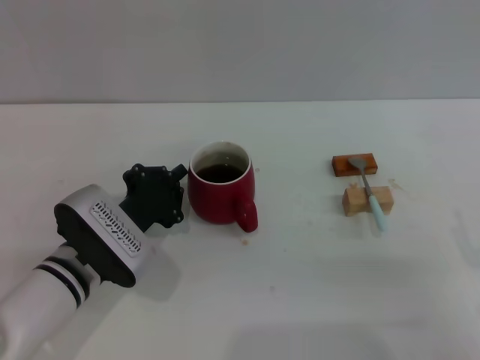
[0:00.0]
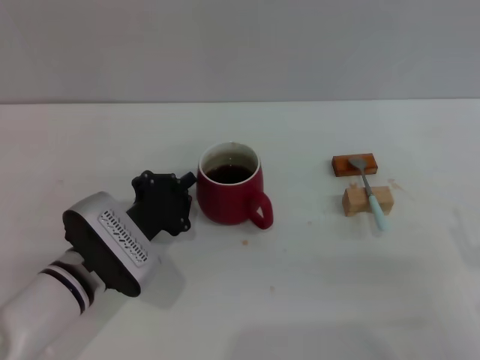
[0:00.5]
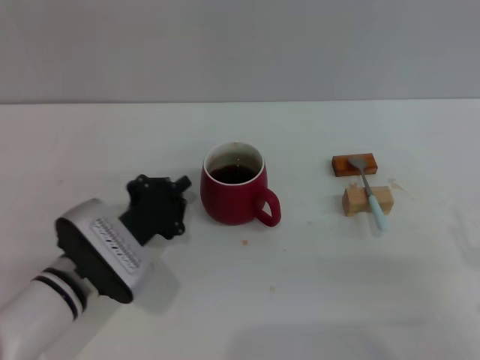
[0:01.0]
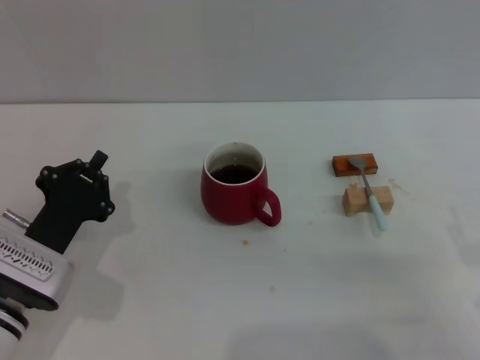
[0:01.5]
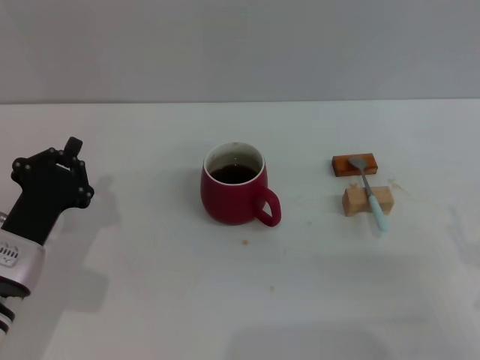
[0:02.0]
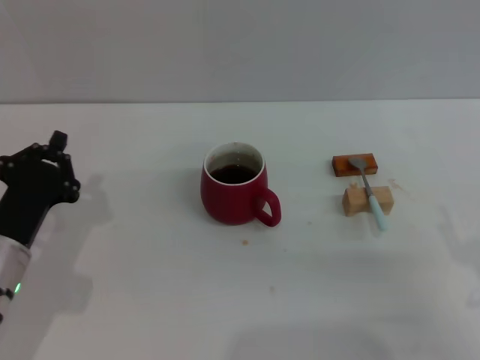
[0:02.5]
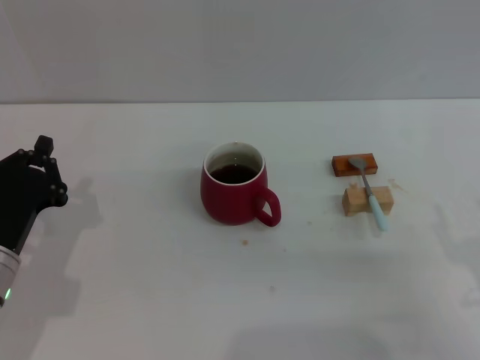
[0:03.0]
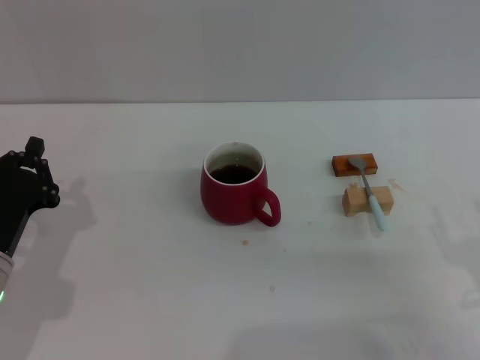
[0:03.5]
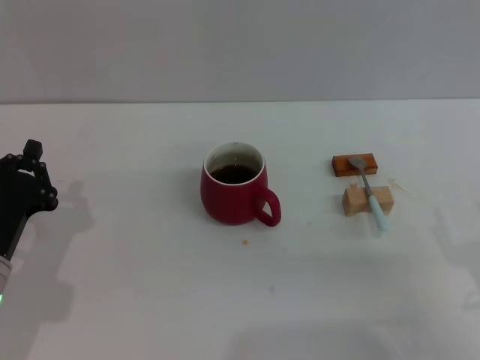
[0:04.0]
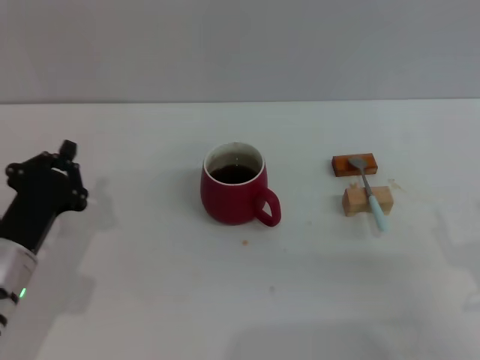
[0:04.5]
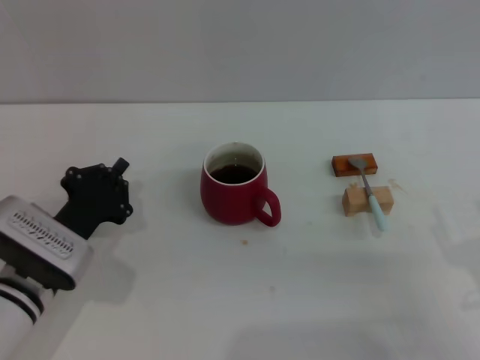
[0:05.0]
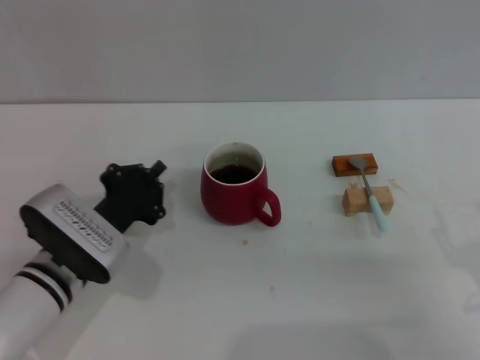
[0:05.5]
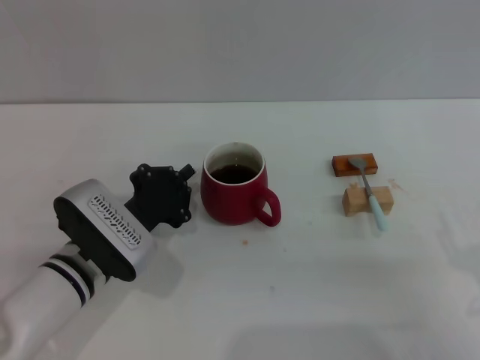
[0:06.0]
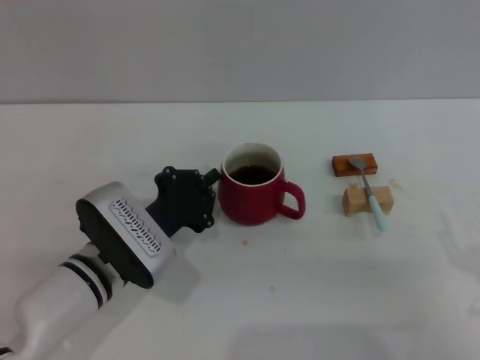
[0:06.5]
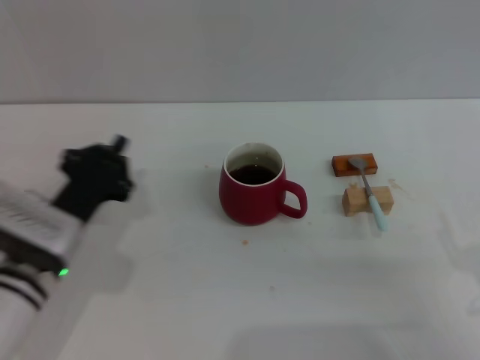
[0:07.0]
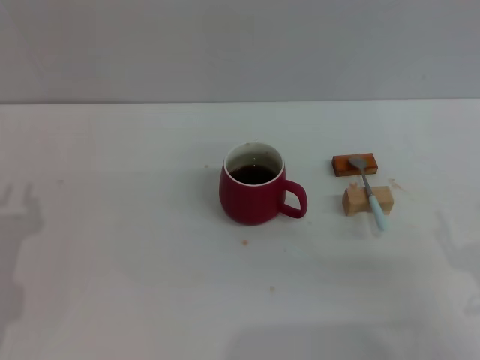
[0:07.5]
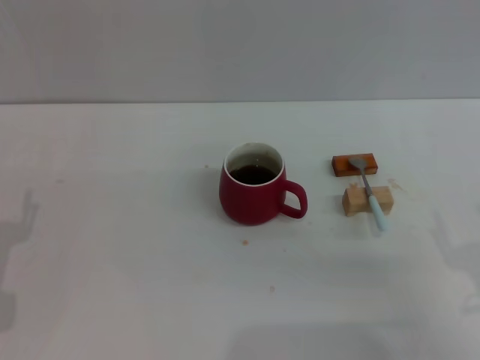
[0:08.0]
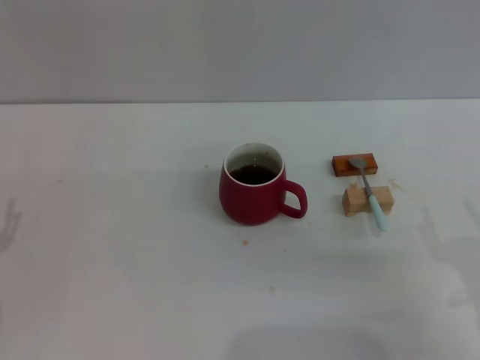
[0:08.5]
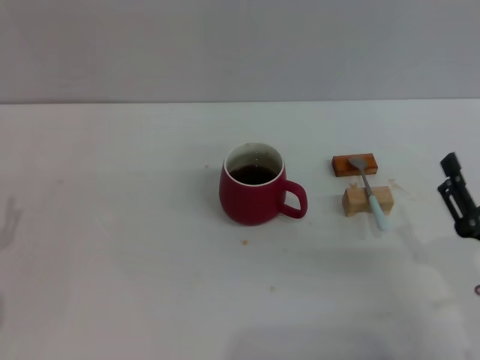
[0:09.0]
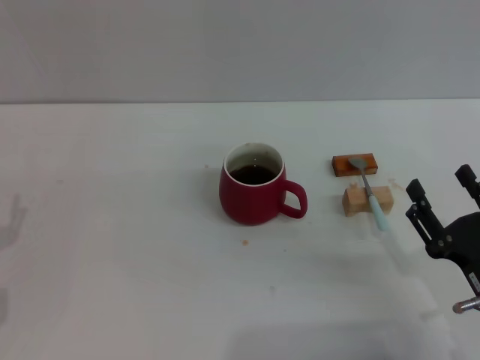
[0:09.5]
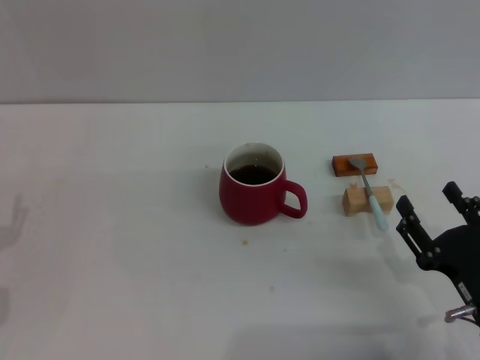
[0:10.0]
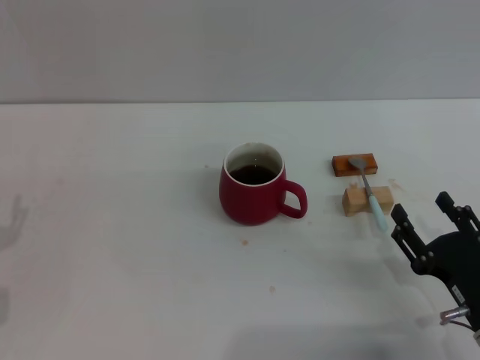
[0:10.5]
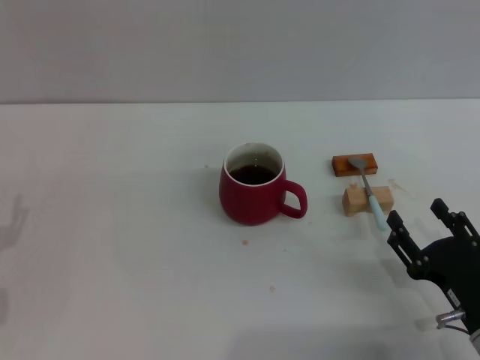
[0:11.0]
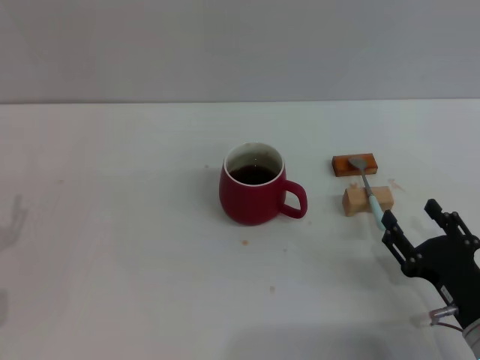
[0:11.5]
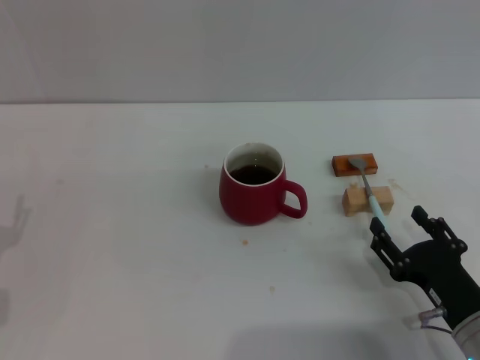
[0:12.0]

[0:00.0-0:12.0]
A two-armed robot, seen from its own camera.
Task of the whole recording: Move the red cup to the center, lift the blue spoon, stir it three times in the cup, and put the spoon into the cup.
Step, 0:00.0 to 0:06.5: Move the cup with coffee to the center of view with the left gripper.
0:00.0 to 0:02.0: The left gripper is displaced to the left by roughly 5 cm.
0:02.0 to 0:04.0: The grippers move only a little.
0:04.0 to 0:06.0: The left gripper goes roughly 10 cm to the right and forward.
0:06.0 to 0:08.0: The left gripper moves to the left and backward, some 15 cm, and opens up.
0:08.0 to 0:10.0: The right gripper moves some 5 cm.
0:10.0 to 0:12.0: There are only small adjustments of the grippers.

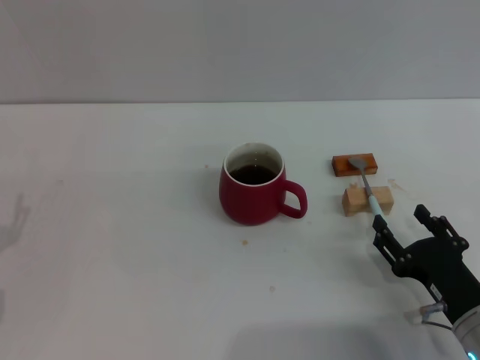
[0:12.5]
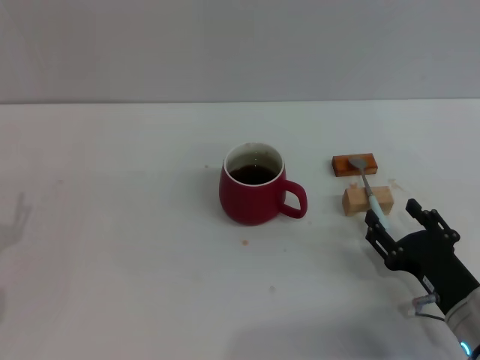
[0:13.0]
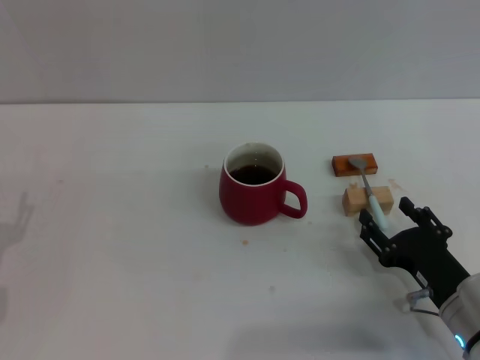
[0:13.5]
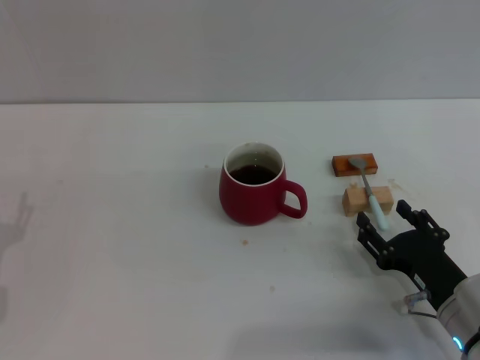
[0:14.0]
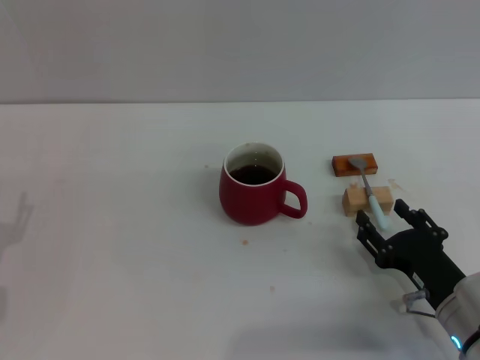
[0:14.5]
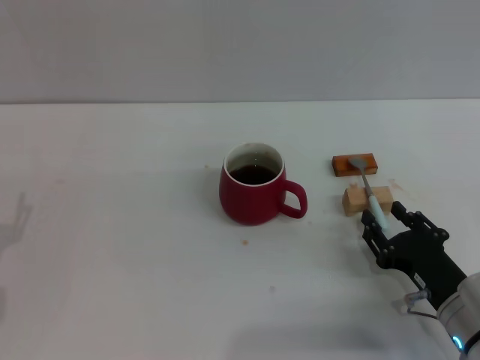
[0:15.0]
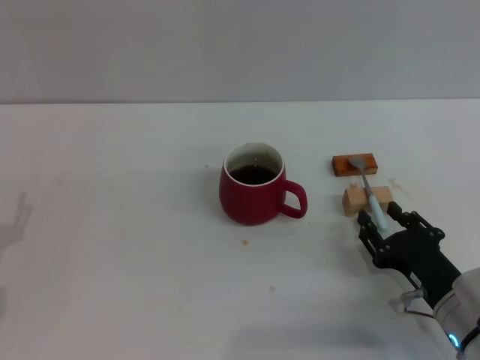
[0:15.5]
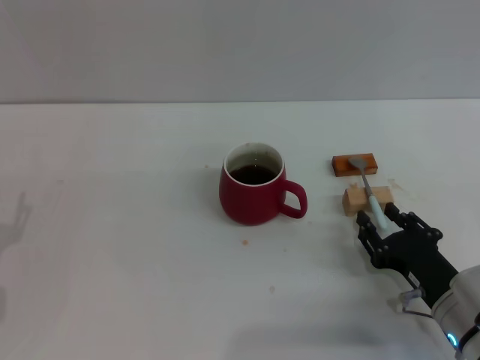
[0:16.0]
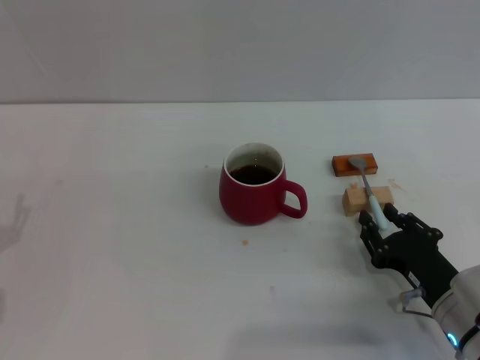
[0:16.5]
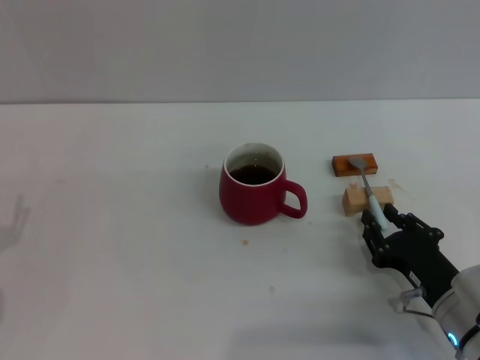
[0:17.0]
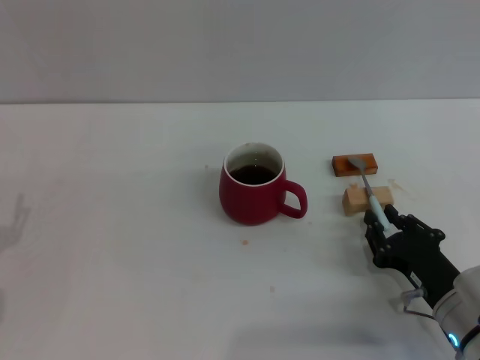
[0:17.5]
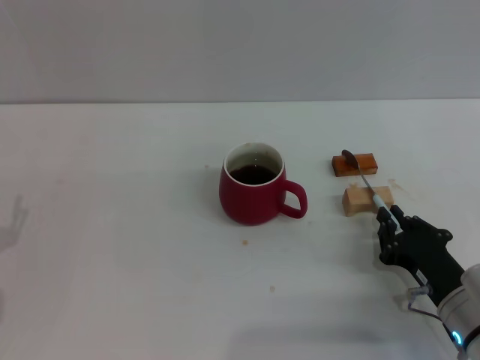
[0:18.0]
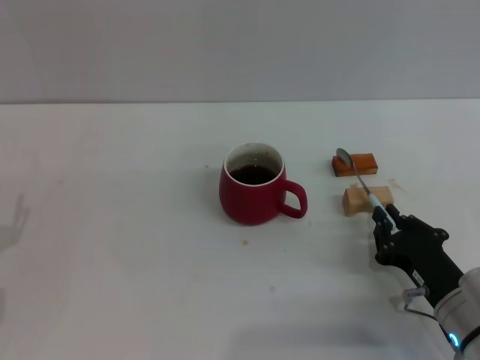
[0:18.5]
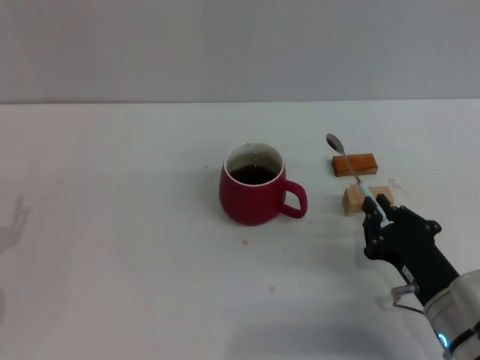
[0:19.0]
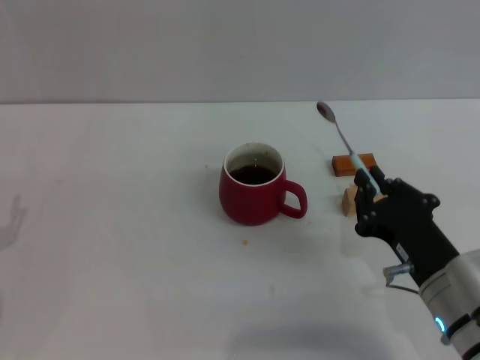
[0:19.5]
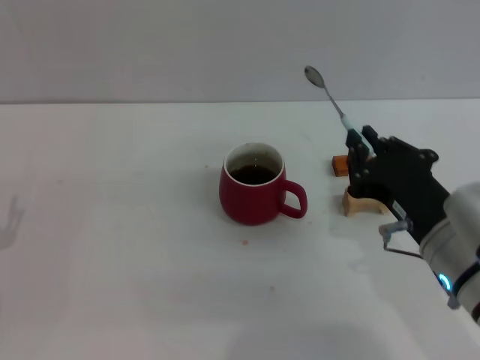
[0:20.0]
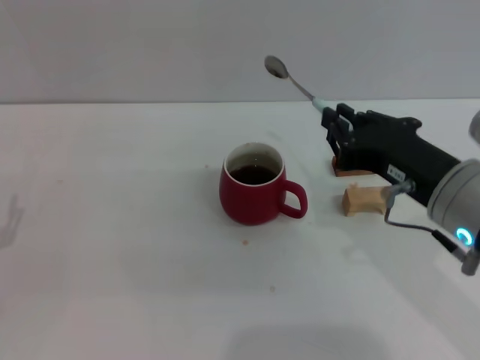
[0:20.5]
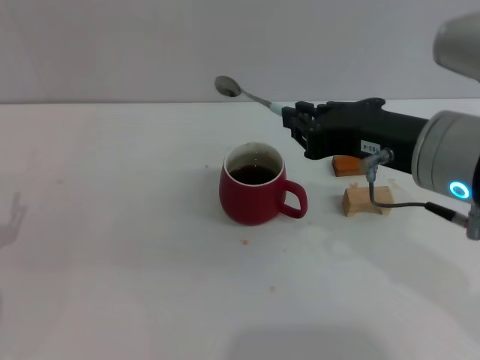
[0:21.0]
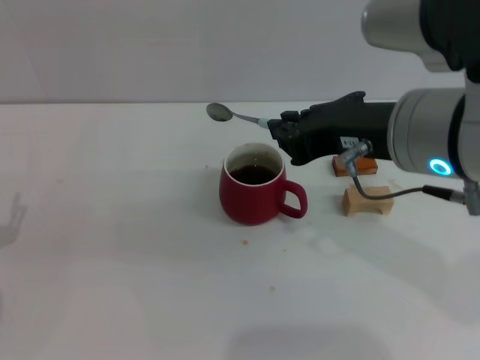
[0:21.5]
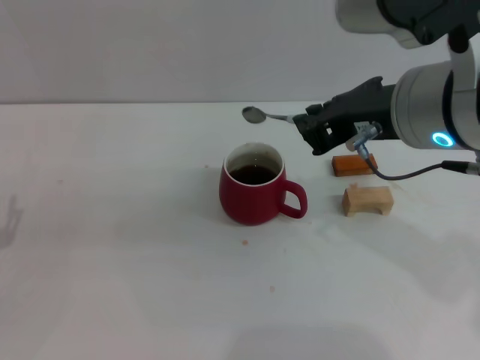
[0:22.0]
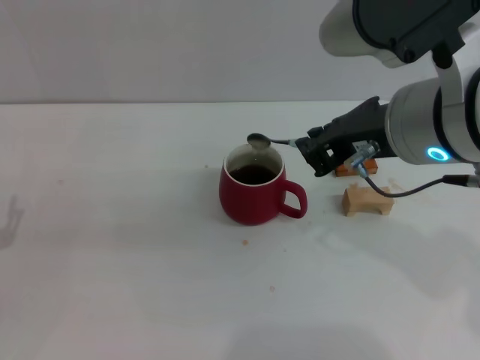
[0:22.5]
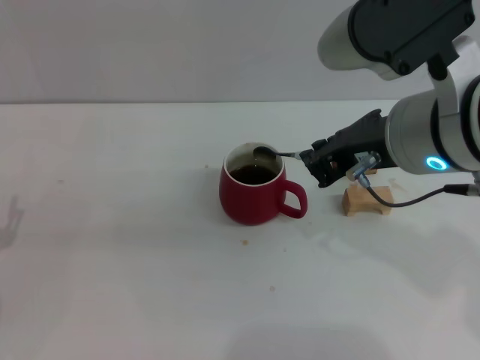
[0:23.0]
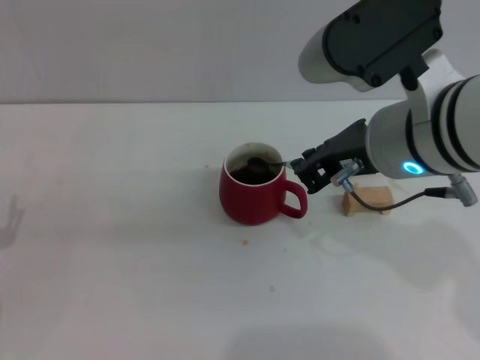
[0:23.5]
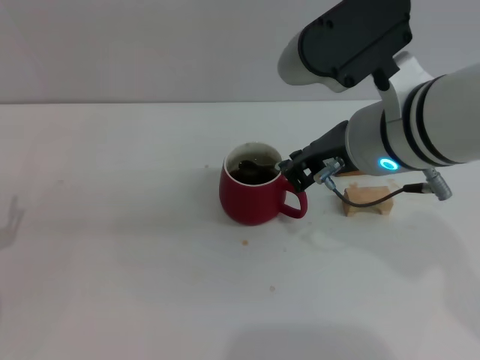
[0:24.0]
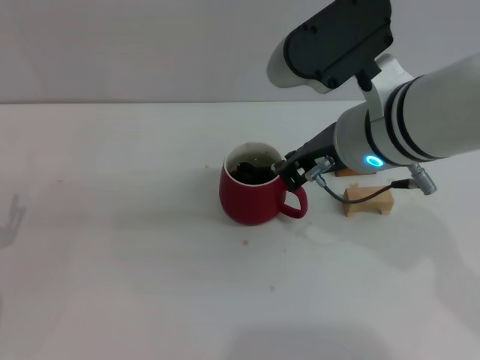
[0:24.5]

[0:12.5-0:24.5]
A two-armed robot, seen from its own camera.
Task of the whole recording: Move the red cup to the center, lift the blue spoon, stir it three times in the cup, and put the spoon into the cup.
Step, 0:12.5 to 0:19.5: Pick up the spoon with the right gripper.
0:12.5 to 0:14.5: There are only small adjustments of the grippers.
0:14.5 to 0:16.5: The right gripper closes its fingers.
0:16.5 to 0:18.5: The right gripper closes.
0:18.5 to 0:20.5: The right gripper goes some 20 cm upward.
0:20.5 to 0:22.5: The right gripper heads upward, covering approximately 10 cm.
0:22.5 to 0:24.5: The right gripper shifts by approximately 5 cm.

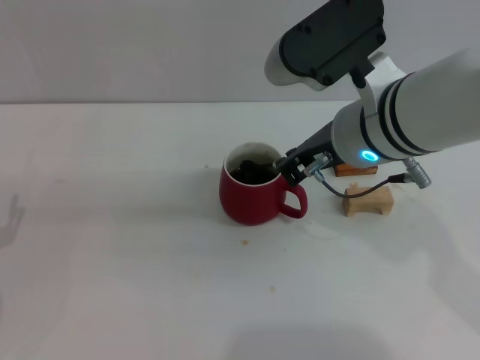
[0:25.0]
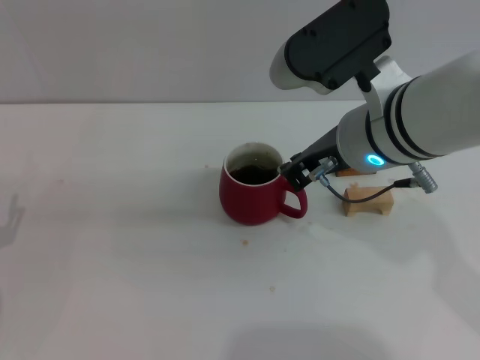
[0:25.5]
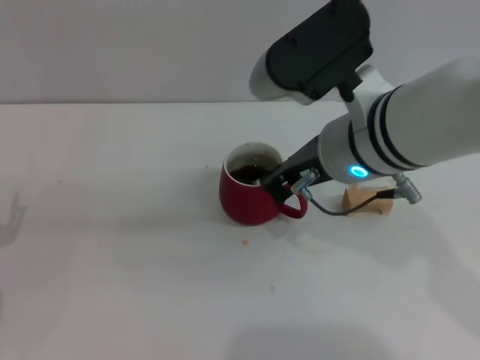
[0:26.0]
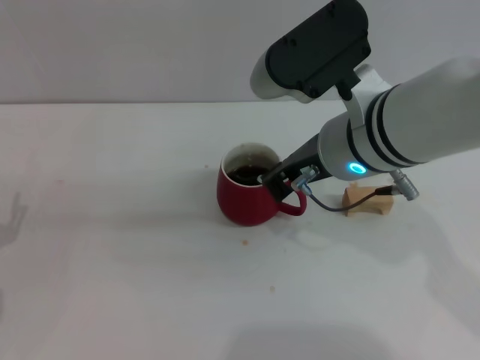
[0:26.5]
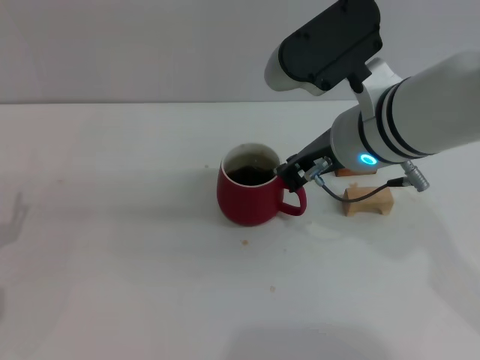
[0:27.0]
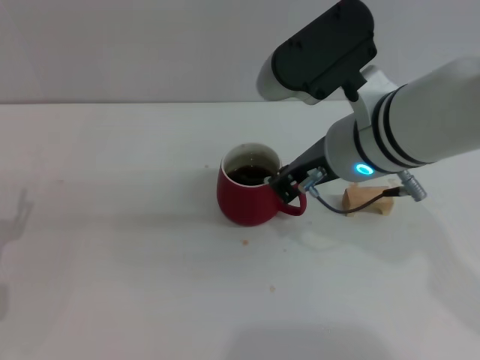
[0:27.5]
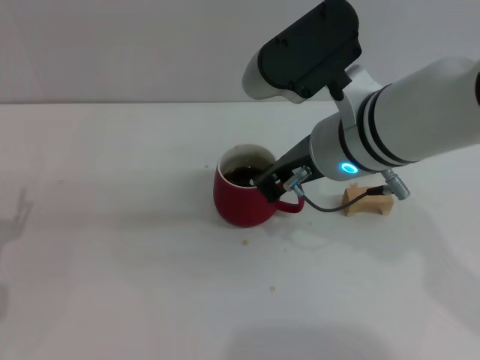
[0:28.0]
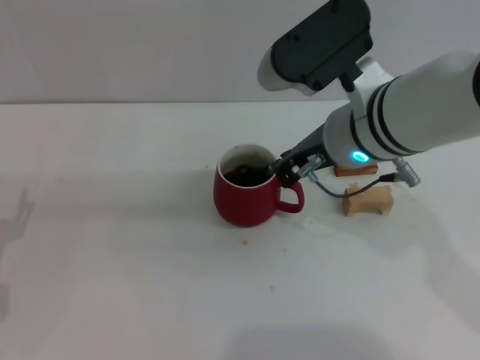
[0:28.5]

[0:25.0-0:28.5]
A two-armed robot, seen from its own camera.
Task of the whole recording: Move the red cup to the center, lift the blue spoon, stir it three times in the cup, and put the spoon into the cup.
0:25.0 to 0:28.5: The grippers move only a little.
